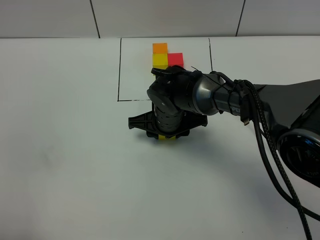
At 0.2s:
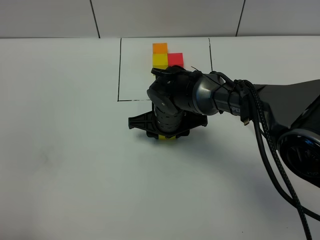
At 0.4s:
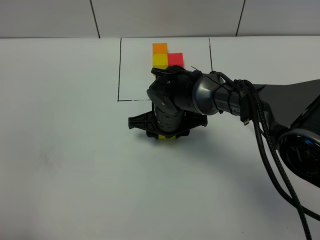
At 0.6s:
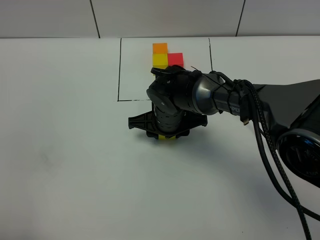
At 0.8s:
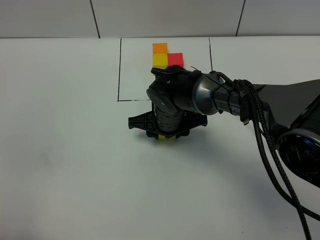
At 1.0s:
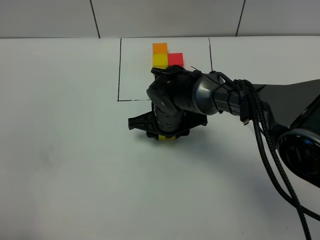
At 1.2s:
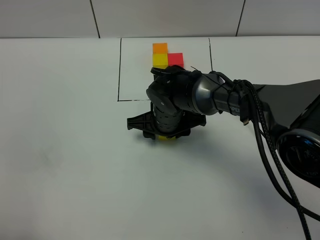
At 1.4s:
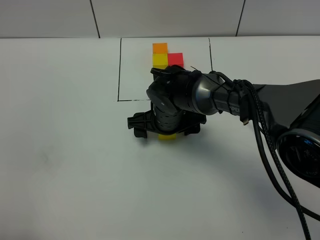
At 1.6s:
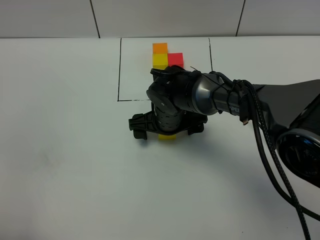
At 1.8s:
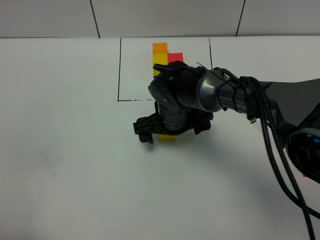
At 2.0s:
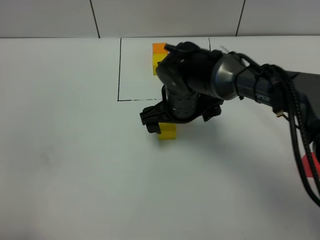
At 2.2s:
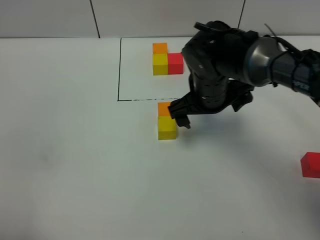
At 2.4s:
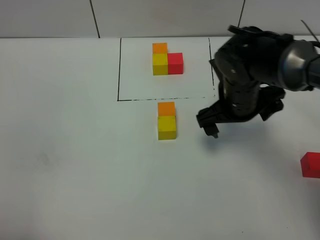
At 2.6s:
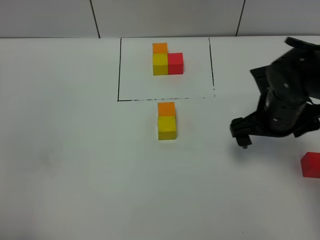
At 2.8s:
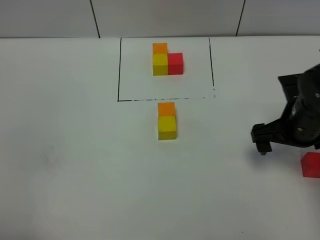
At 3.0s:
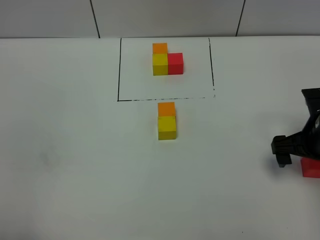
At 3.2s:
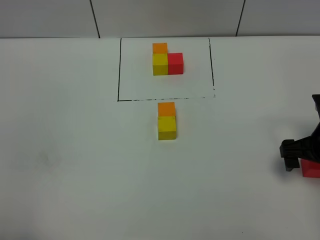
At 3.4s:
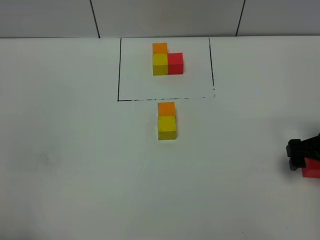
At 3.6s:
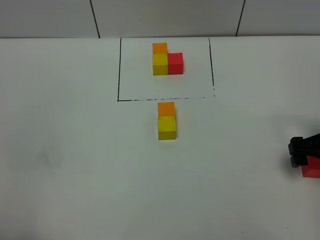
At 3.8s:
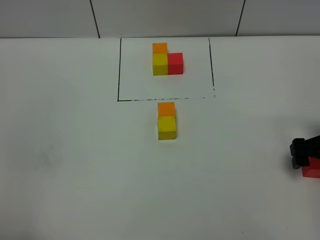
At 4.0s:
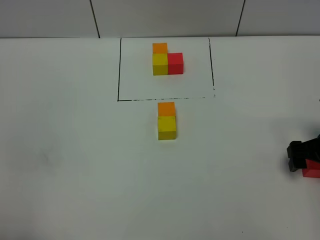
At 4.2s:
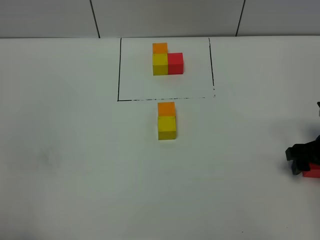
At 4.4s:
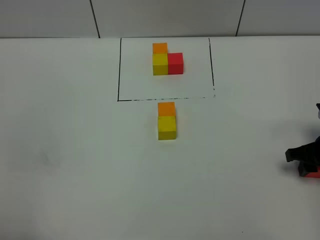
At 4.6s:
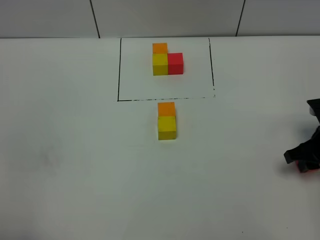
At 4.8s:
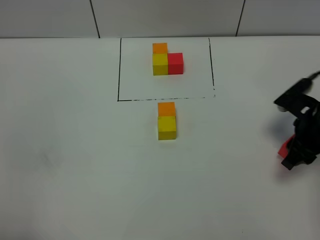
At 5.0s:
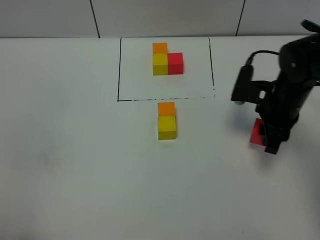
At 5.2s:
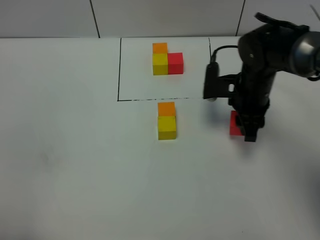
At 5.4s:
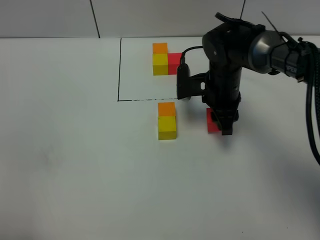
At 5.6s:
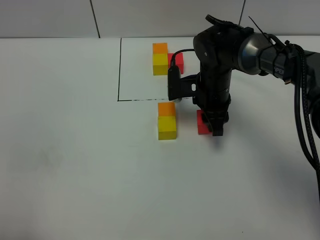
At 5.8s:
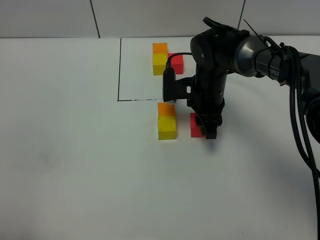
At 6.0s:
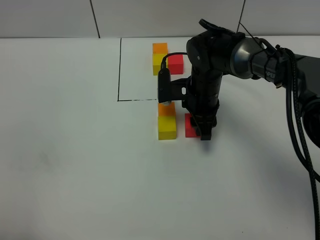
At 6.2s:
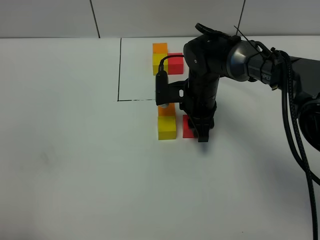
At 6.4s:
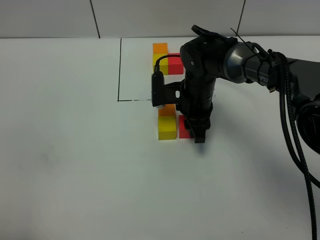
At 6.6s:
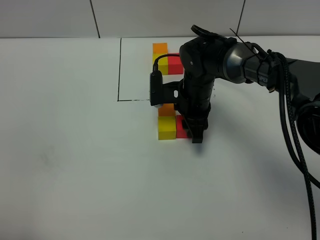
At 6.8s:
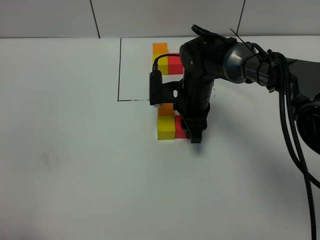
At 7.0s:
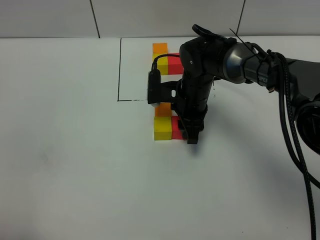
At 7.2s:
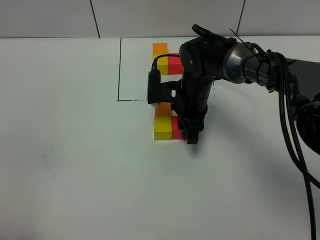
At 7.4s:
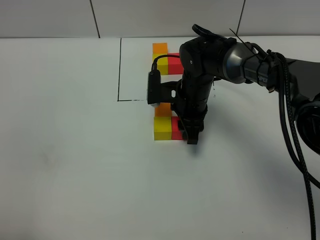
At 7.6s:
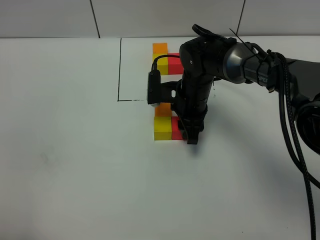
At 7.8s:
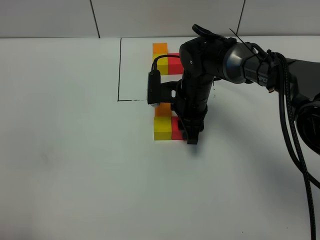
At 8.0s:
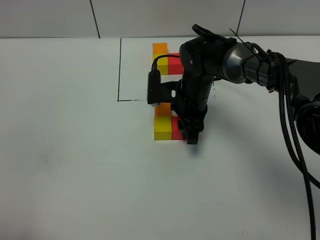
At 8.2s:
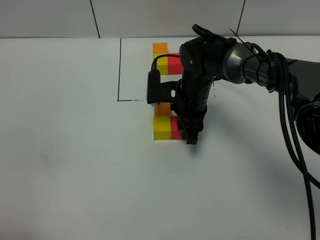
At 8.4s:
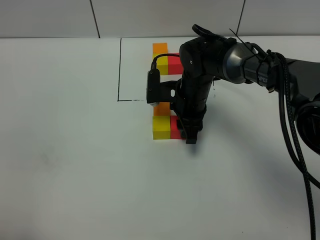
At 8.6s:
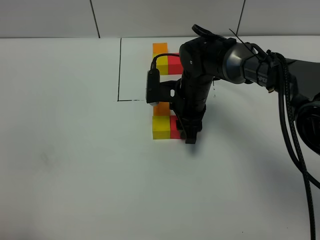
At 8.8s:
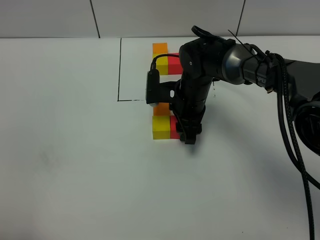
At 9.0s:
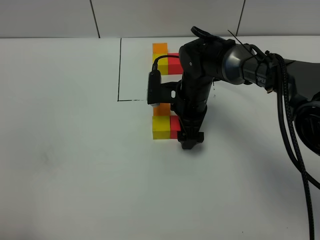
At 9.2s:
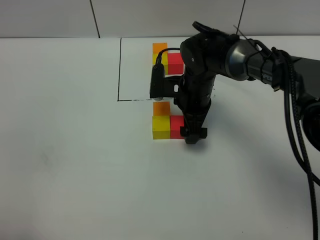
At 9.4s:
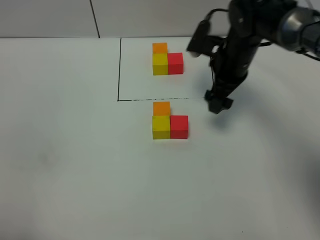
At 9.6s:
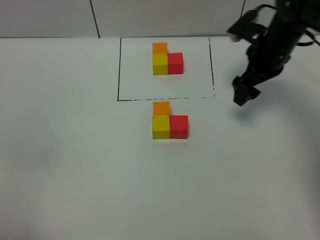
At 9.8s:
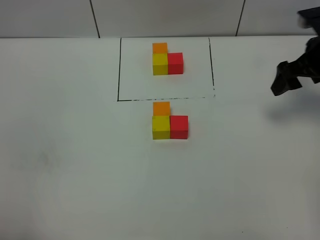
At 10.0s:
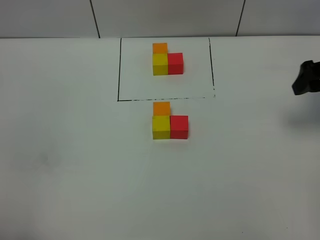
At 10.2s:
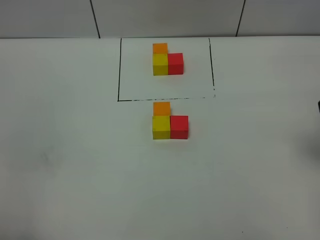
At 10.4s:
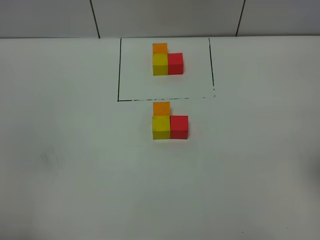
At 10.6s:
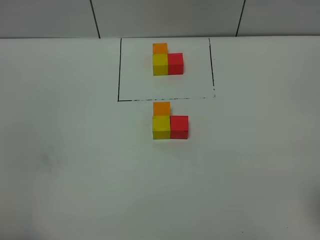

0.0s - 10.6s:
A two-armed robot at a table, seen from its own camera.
Task of the whole recording: According to the building block template in front, assemble the scattered blocks together.
Step, 1.4s - 9.0s: Put the orange build block on the front of the yellow build block.
0.0s - 1.6s: The right gripper opens.
1.6s - 3.0s: The right gripper heads to the right, covering approximately 25 cm.
3.0s - 4.6s: The right gripper closes up.
4.6s - 6.0s: The right gripper heads to the left and forward, covering some 25 cm.
6.0s - 7.6s: The grippers stay close to where they were, moving slightly.
7.6s - 9.0s: The right gripper opens its fingers.
9.0s - 10.6s: The right gripper travels backward, to the right and upward by about 40 cm.

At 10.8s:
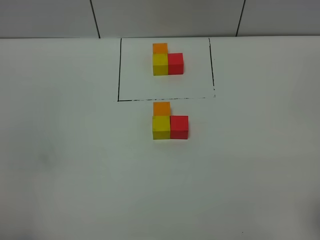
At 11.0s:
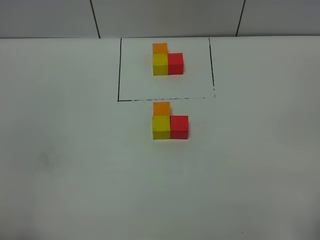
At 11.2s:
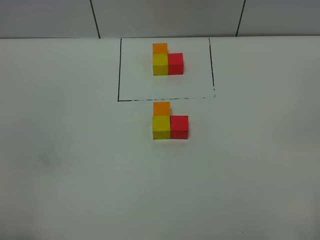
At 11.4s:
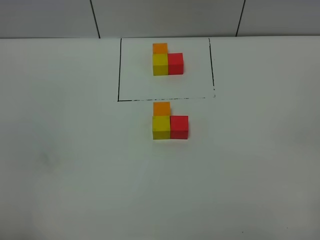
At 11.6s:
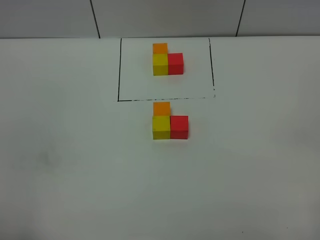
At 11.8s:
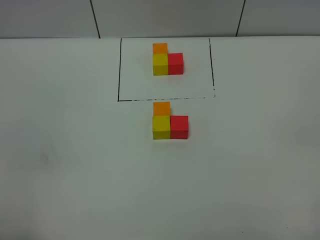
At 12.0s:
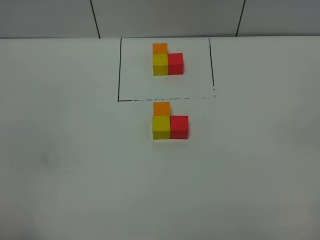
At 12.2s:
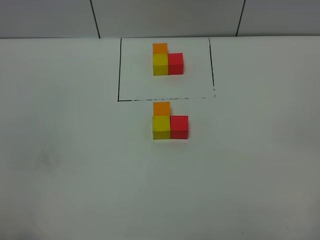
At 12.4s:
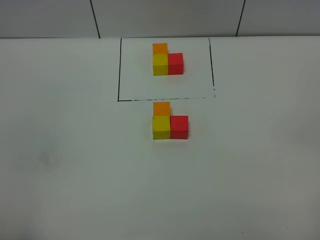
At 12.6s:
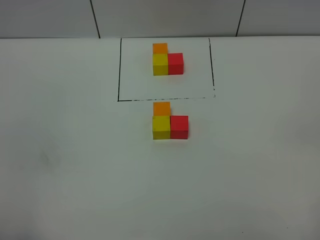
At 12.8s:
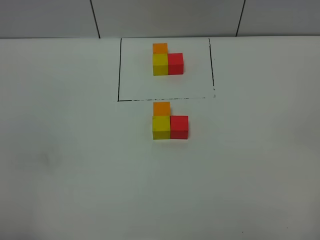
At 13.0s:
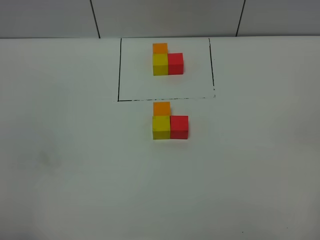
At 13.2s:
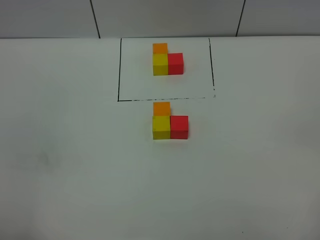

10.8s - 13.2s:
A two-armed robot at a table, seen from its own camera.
Task of the whole recording: According to the building block template in front, assemble the scattered blocks together.
12.0s - 13.2s: Both grippers stay put.
